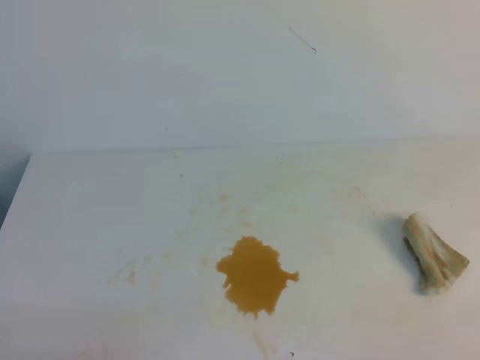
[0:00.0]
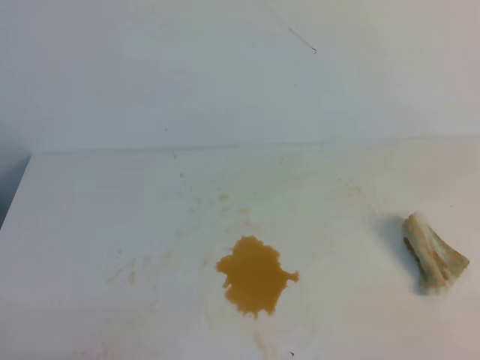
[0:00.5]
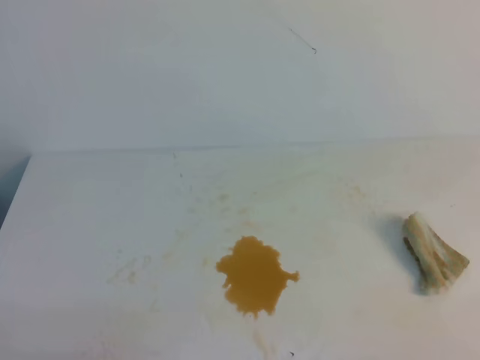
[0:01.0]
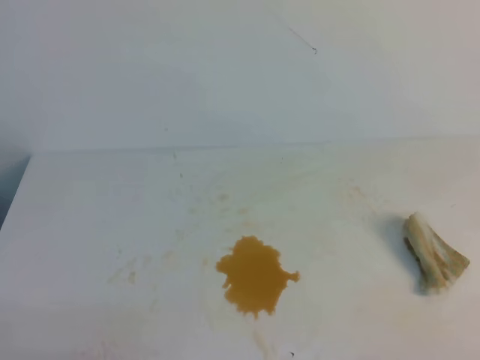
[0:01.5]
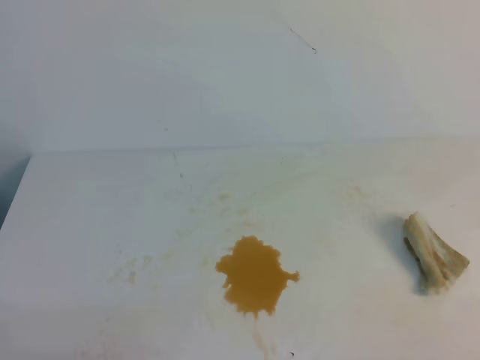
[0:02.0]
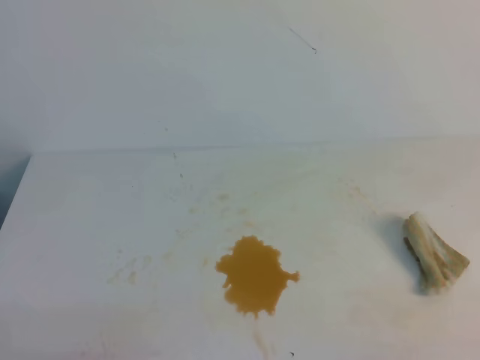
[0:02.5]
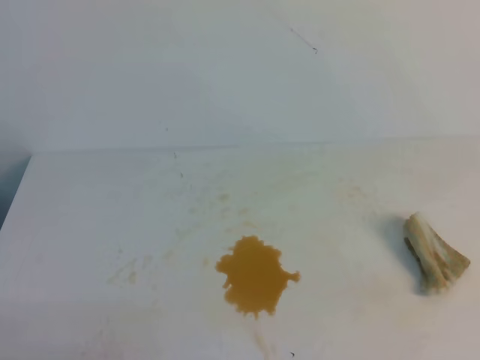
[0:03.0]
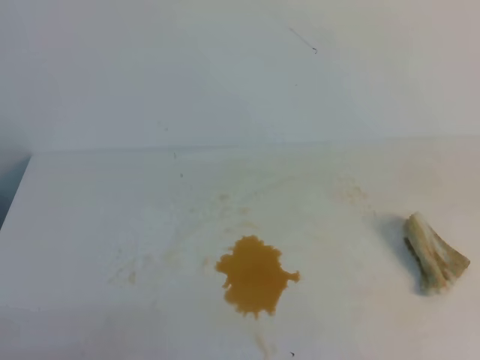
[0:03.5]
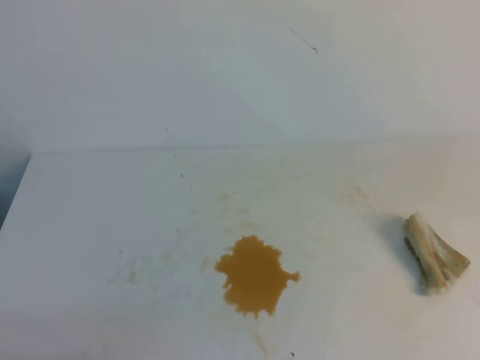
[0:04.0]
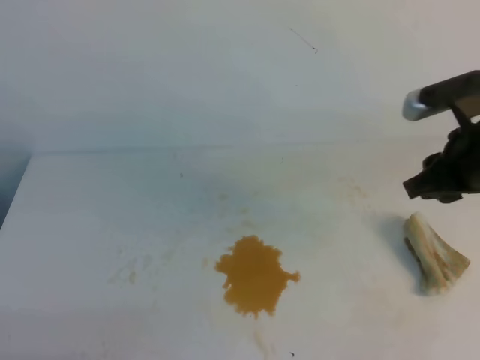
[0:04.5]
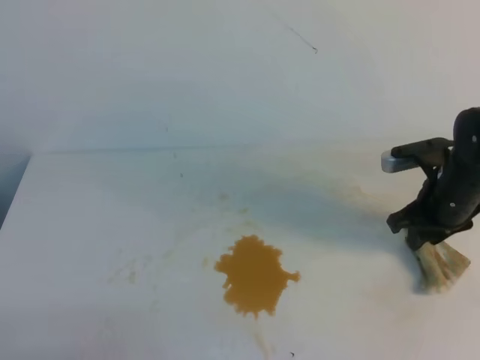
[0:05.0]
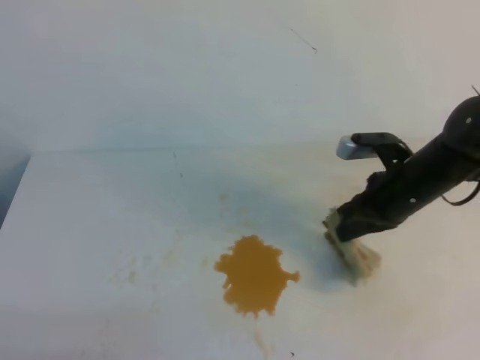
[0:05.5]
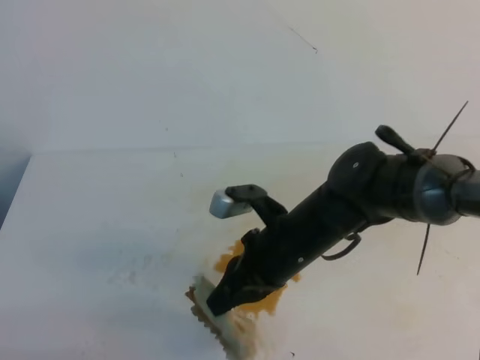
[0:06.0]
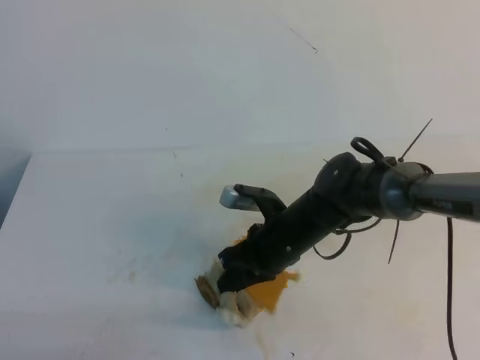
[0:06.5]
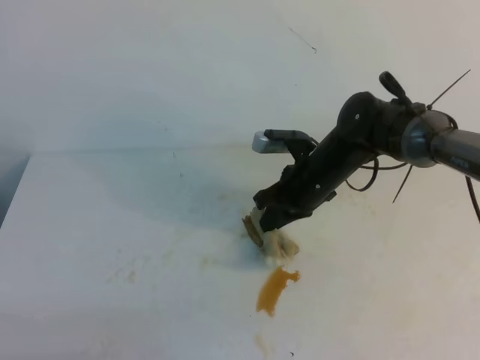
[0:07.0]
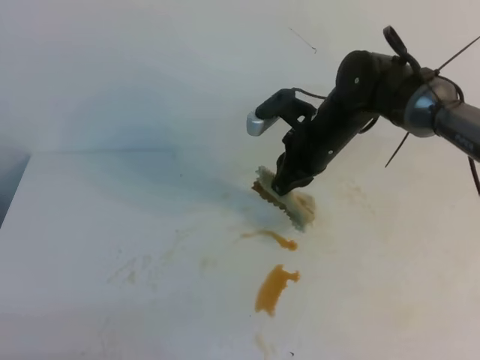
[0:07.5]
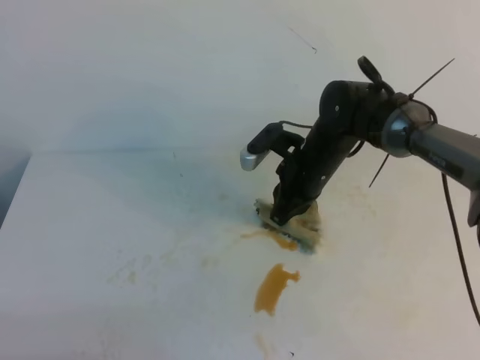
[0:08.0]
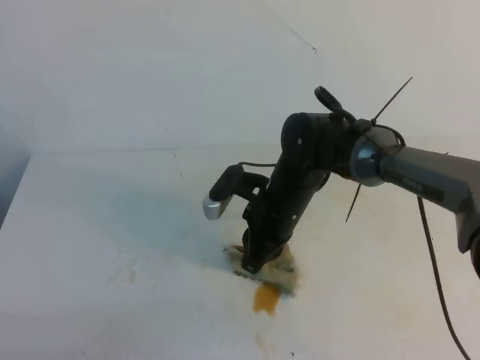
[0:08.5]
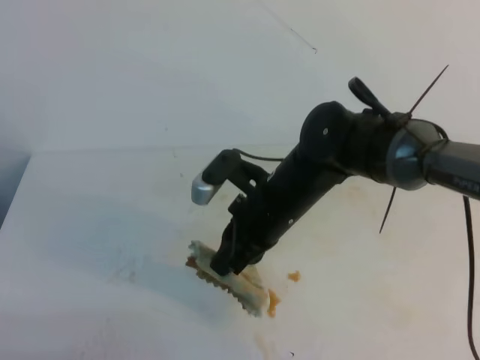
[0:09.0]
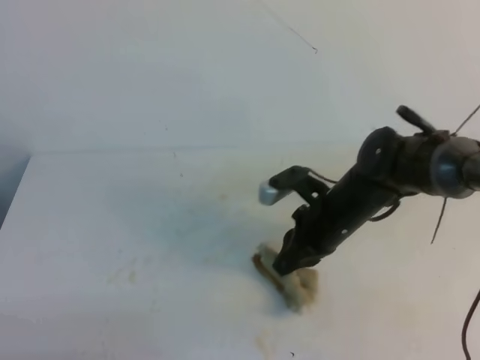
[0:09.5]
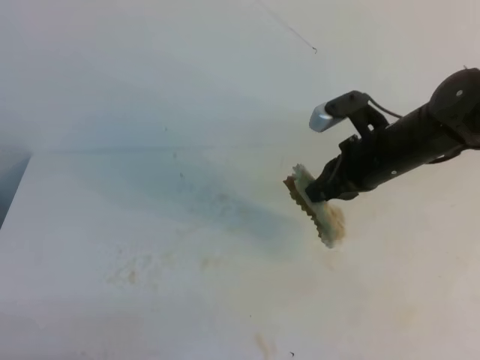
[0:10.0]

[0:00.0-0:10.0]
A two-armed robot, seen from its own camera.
0:04.0 to 0:06.0: The right gripper travels to the left, downward and forward by about 30 cm, and opens and closes again.
0:06.0 to 0:08.0: The right gripper travels forward by roughly 10 cm.
0:08.0 to 0:10.0: The right gripper shifts some 10 cm to the right and backward.

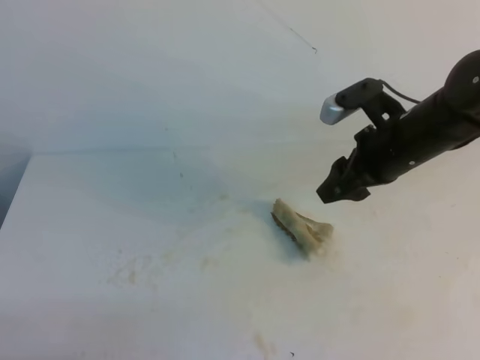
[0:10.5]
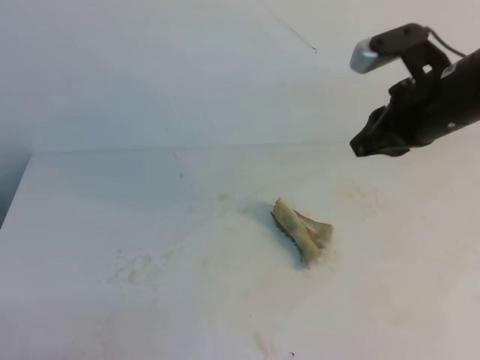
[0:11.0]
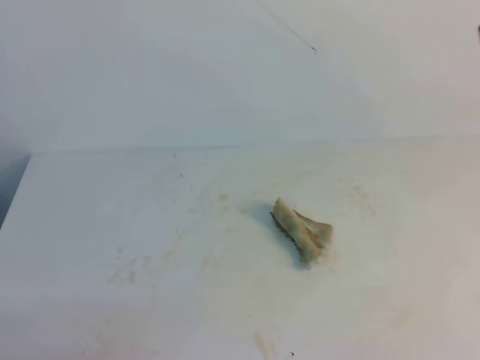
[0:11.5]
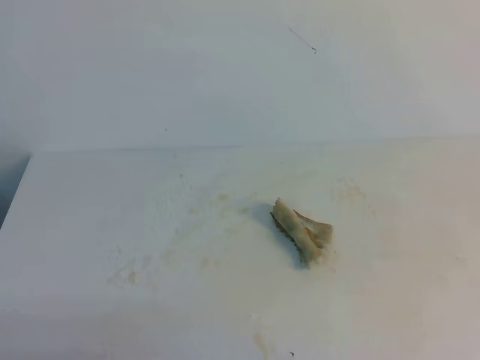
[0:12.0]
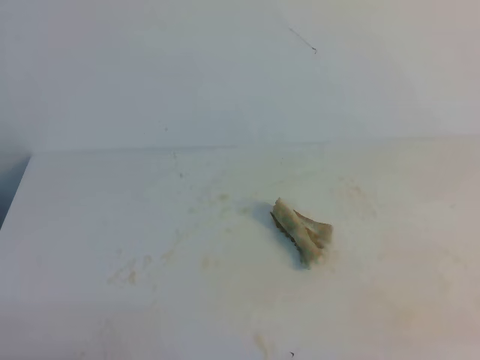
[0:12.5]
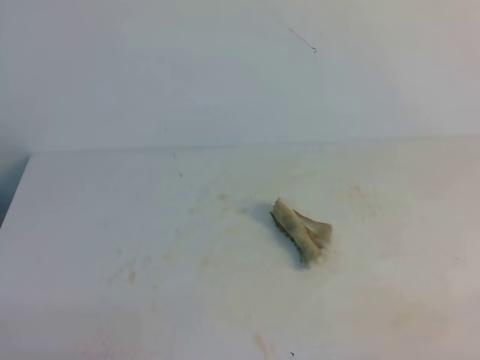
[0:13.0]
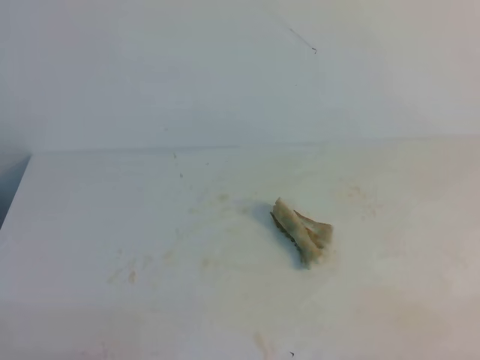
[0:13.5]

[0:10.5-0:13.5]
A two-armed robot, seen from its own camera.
0:10.5 to 0:12.0: The right gripper heads backward, upward and to the right, covering about 35 cm, and closes up.
